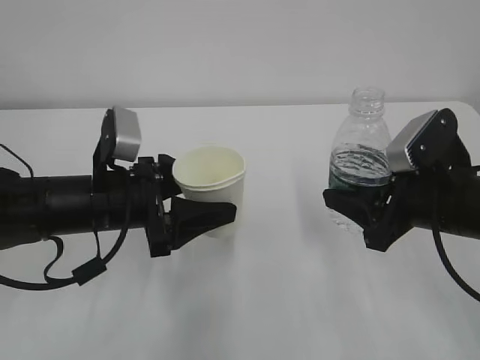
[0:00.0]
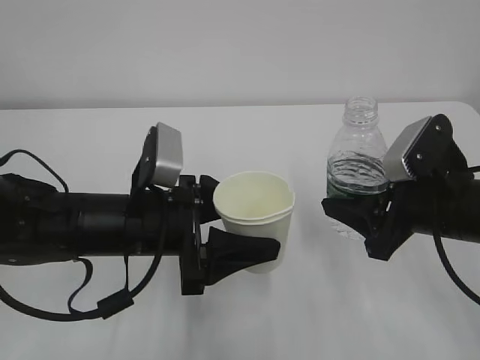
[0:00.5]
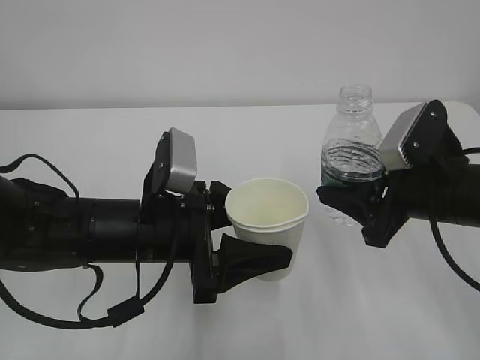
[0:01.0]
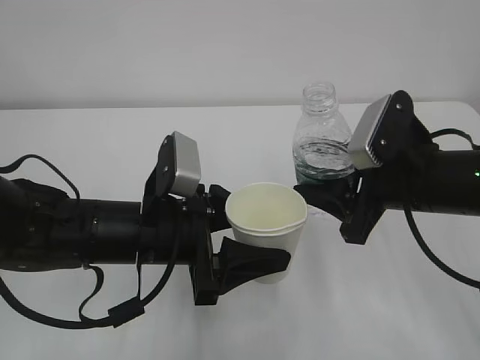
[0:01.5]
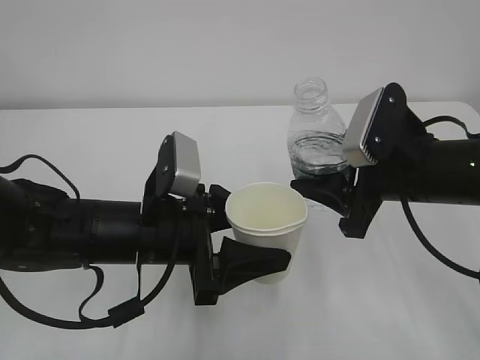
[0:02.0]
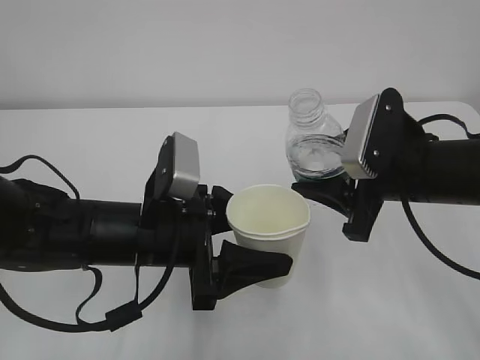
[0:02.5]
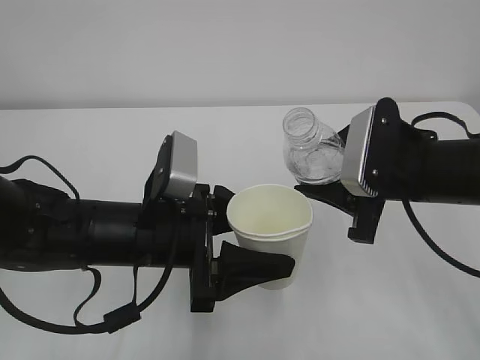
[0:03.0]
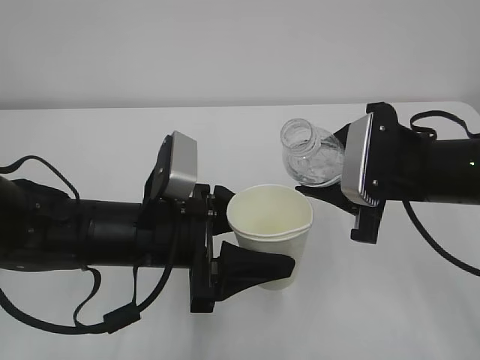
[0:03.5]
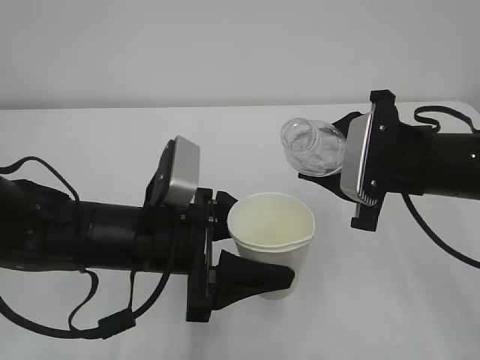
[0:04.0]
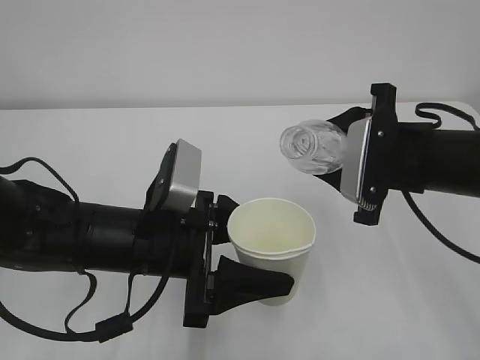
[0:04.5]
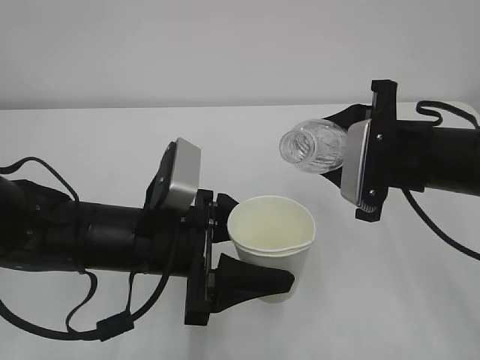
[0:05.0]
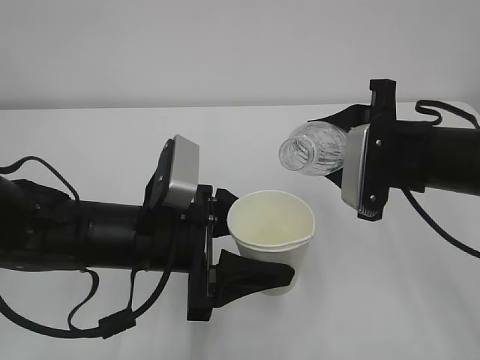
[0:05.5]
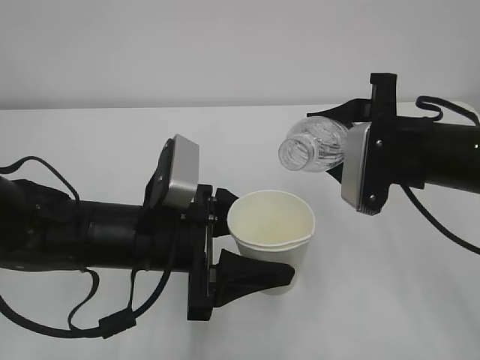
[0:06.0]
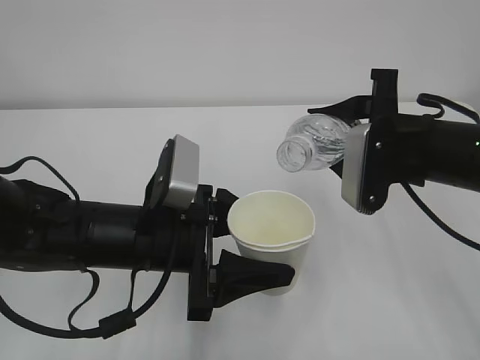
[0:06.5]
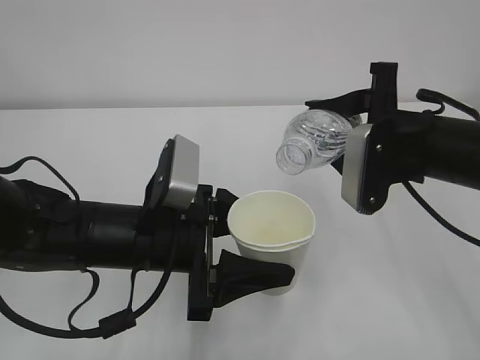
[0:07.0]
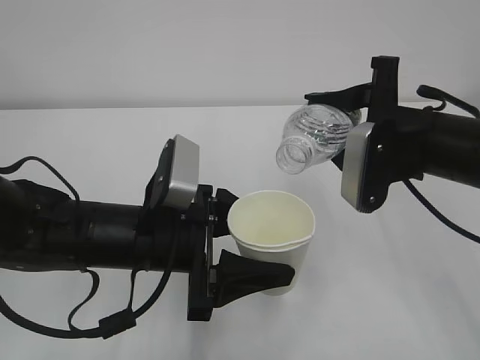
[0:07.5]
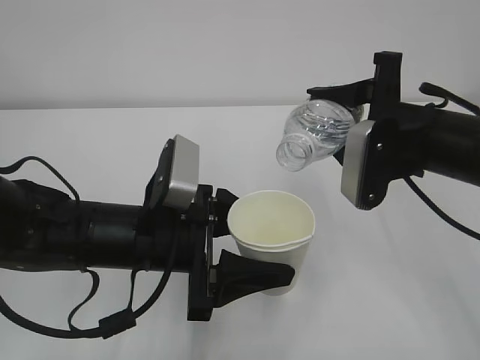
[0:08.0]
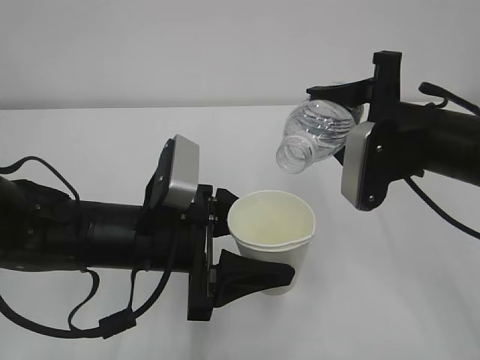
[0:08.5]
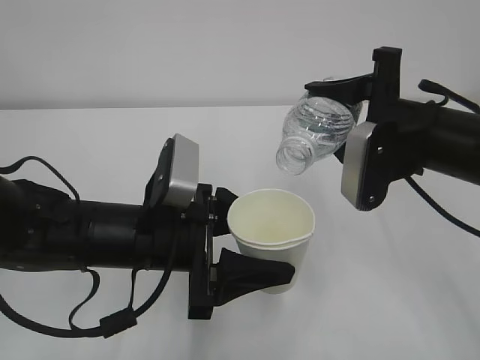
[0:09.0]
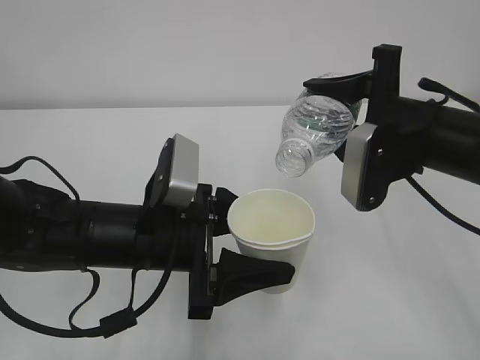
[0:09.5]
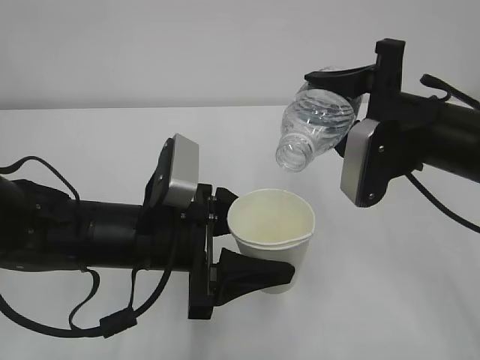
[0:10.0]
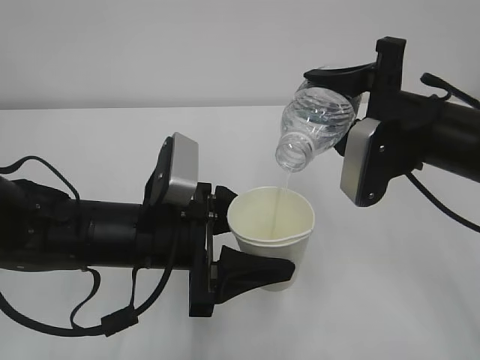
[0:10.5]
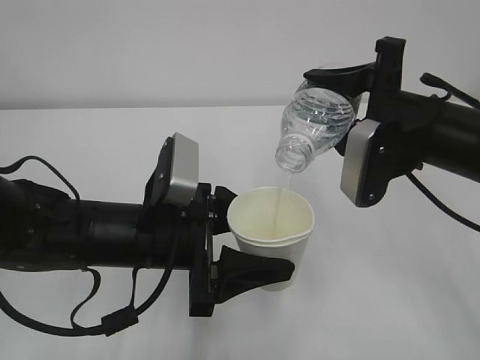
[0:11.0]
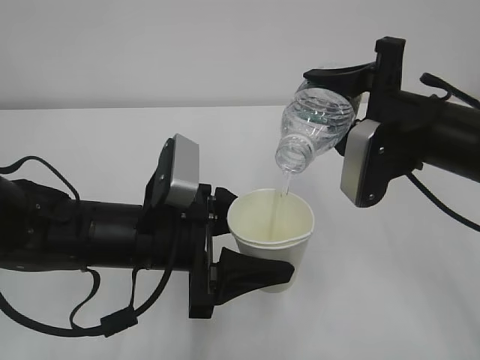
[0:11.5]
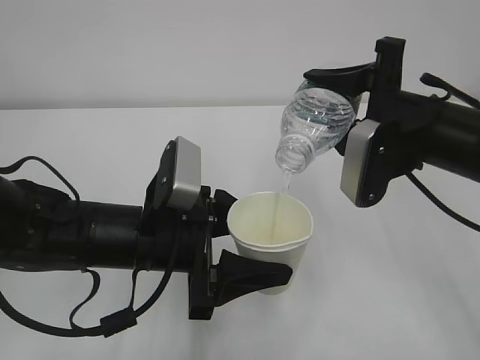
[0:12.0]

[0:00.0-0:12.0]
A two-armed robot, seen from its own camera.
0:00.0 to 0:02.0: The left gripper shifts approximately 5 cm to the right.
0:04.0 to 0:06.0: The grippers stay close to where they were, moving slightly.
0:06.0 to 0:08.0: There are only small adjustments of the grippers.
0:08.0 to 0:10.0: The grippers stay close to where they were, moving slightly.
0:10.0 to 0:12.0: The two grippers keep their place.

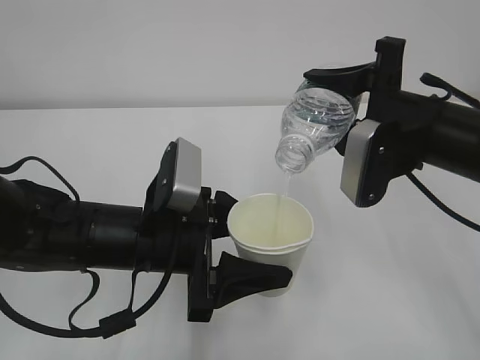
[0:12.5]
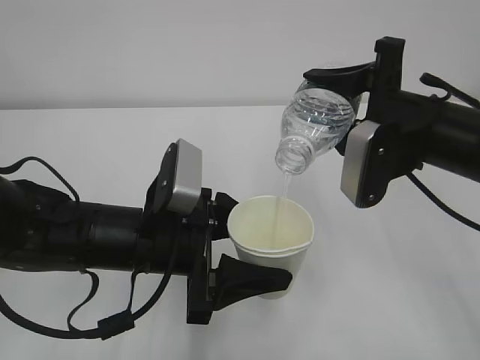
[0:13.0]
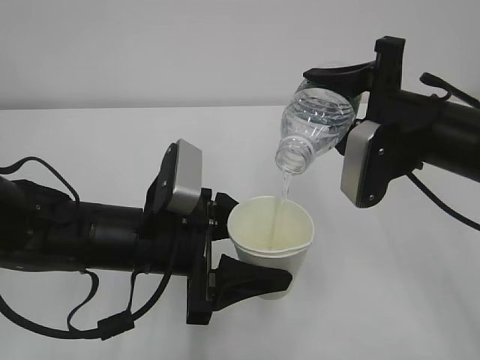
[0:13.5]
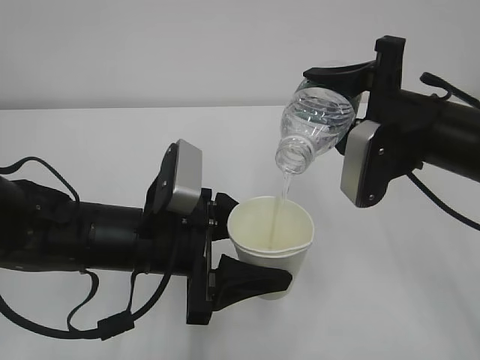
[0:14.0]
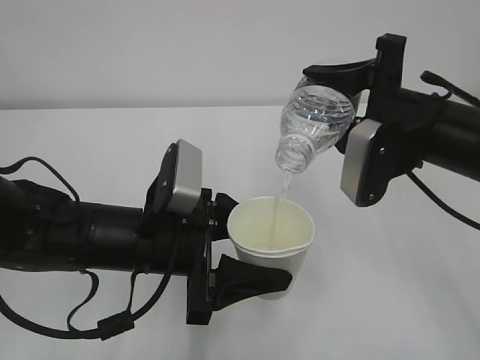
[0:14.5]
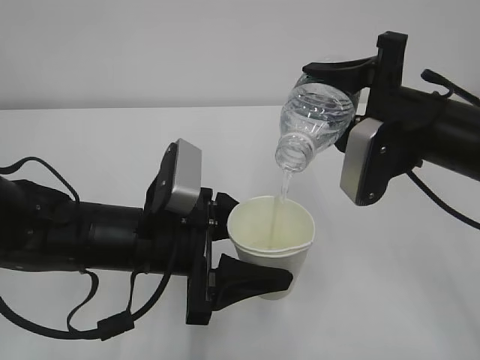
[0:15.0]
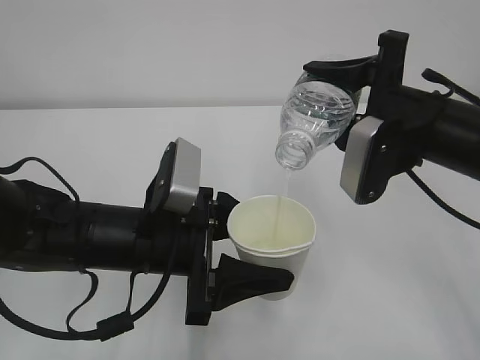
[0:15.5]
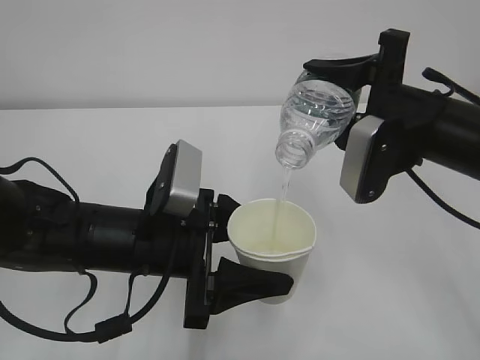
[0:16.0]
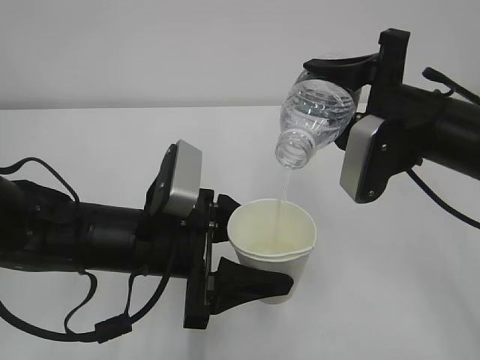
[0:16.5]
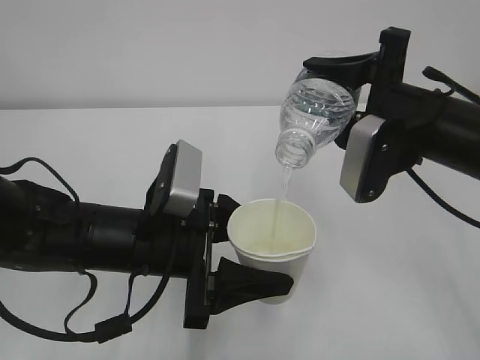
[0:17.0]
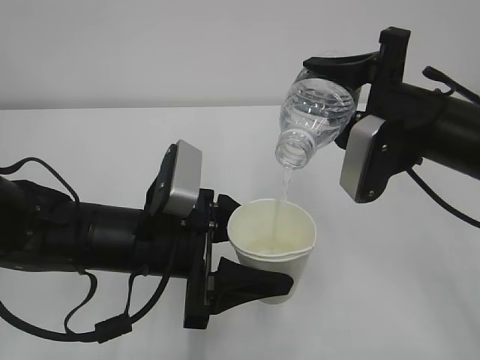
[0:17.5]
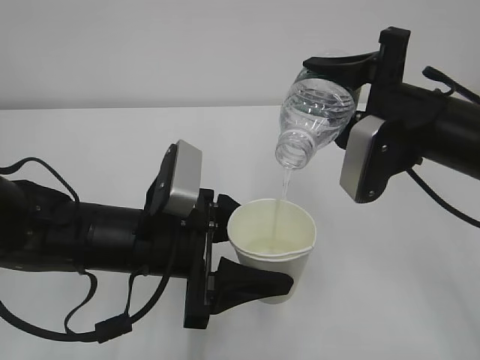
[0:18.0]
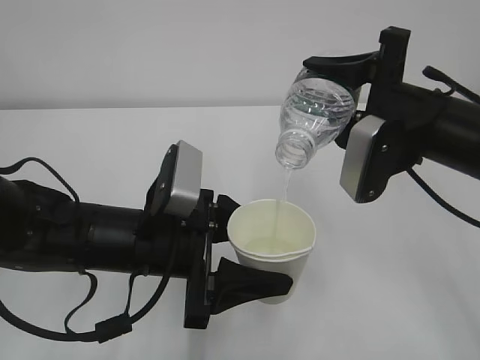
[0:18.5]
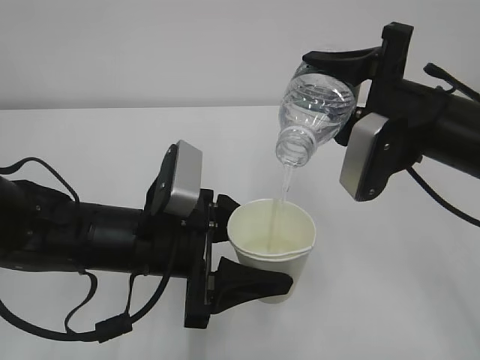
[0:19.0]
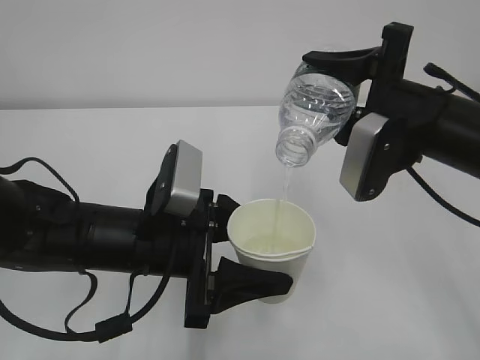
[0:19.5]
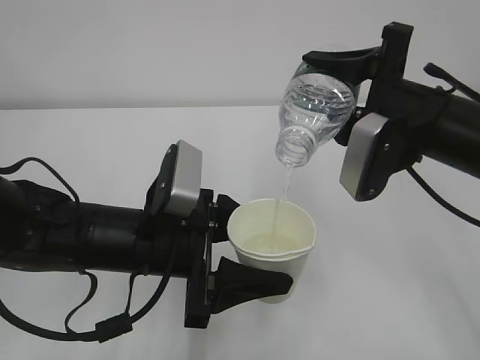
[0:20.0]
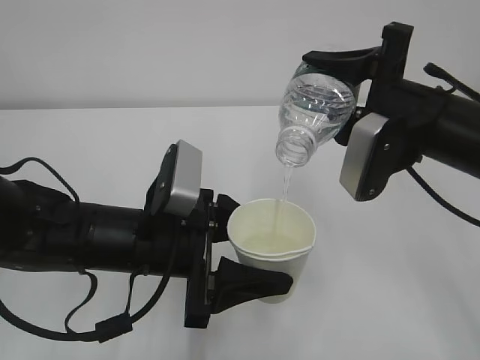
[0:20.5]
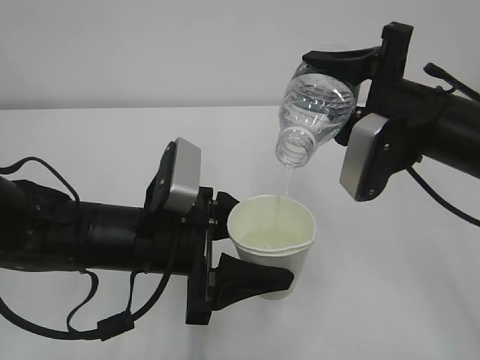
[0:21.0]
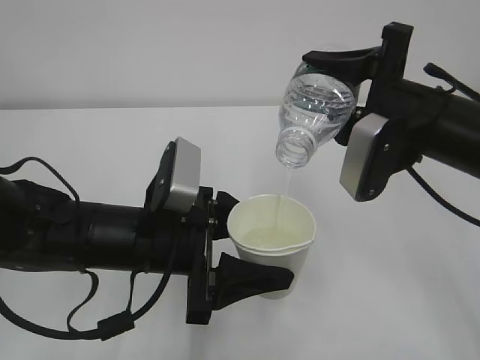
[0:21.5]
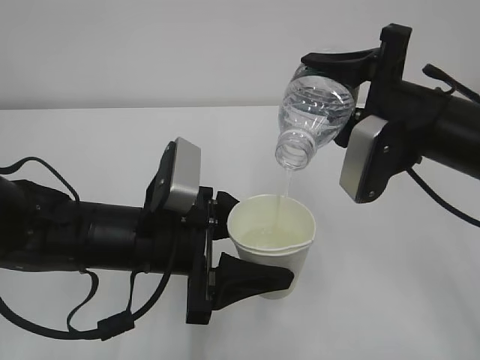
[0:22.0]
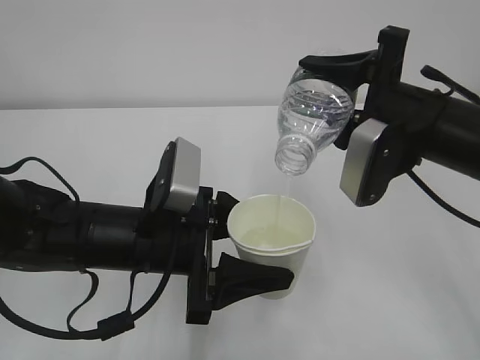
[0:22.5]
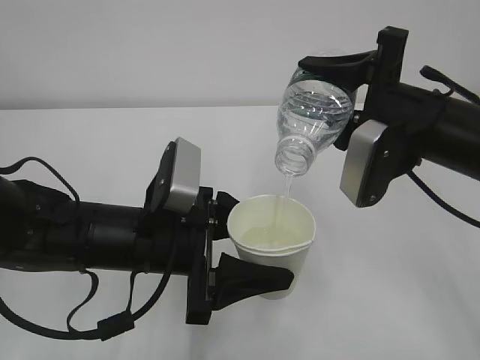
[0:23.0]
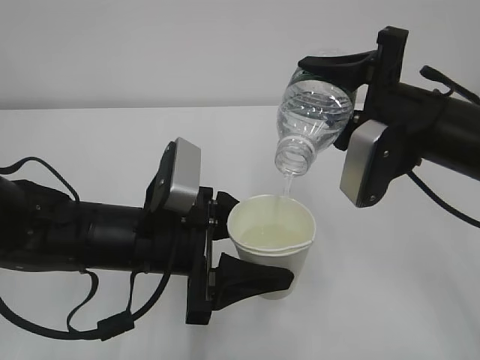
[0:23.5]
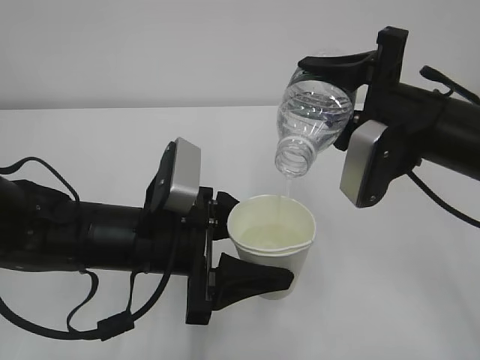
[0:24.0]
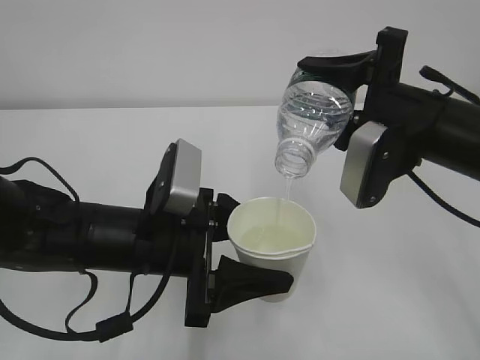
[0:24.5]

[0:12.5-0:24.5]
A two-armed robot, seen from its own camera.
0:12.5 to 0:18.5: Both grippers stay about where they are.
0:18.5 to 0:24.5: The two grippers keep their place.

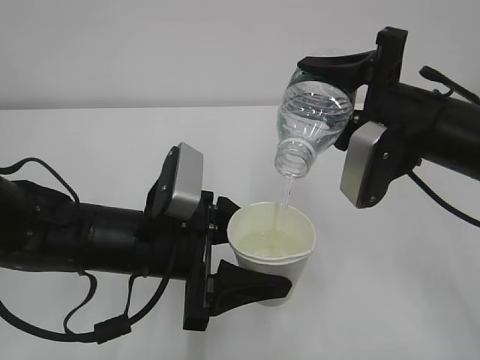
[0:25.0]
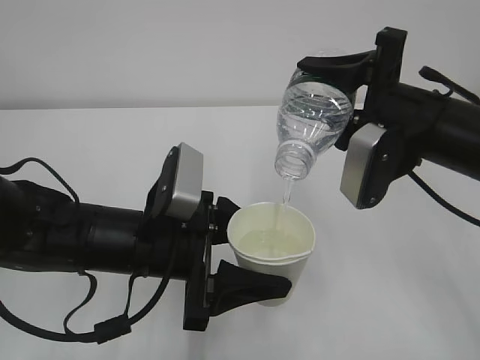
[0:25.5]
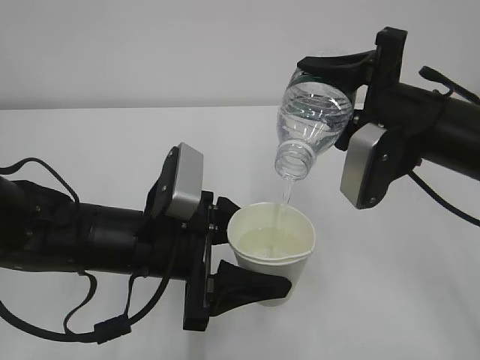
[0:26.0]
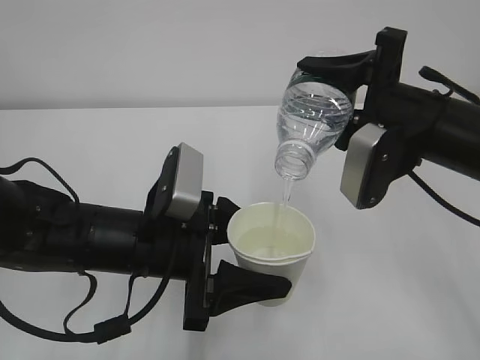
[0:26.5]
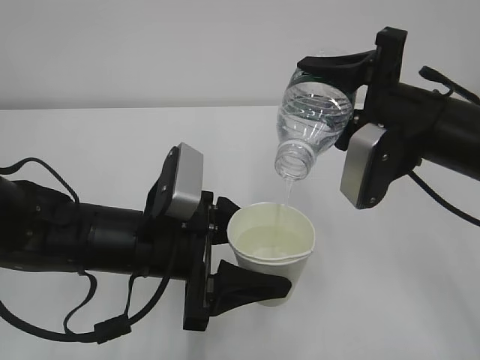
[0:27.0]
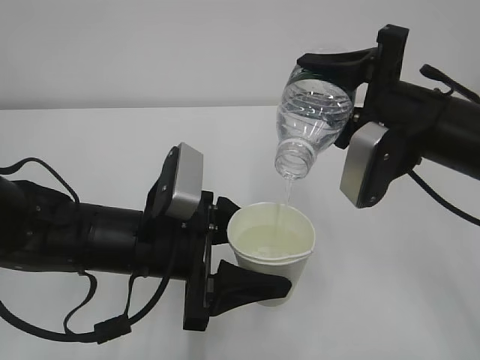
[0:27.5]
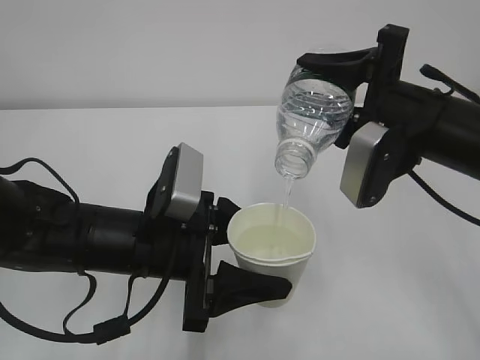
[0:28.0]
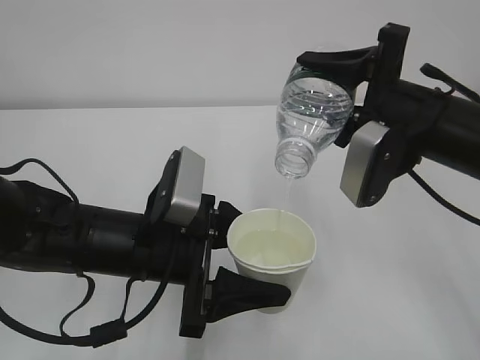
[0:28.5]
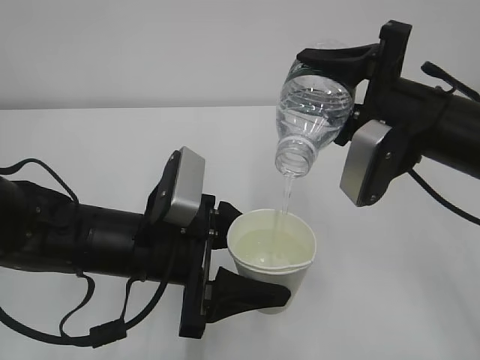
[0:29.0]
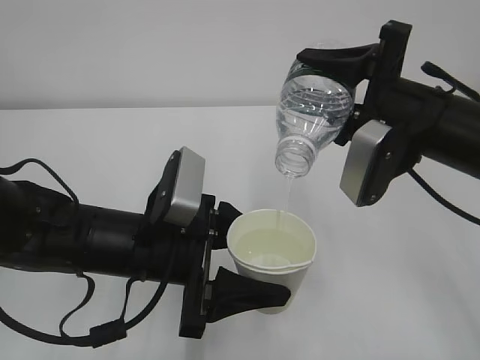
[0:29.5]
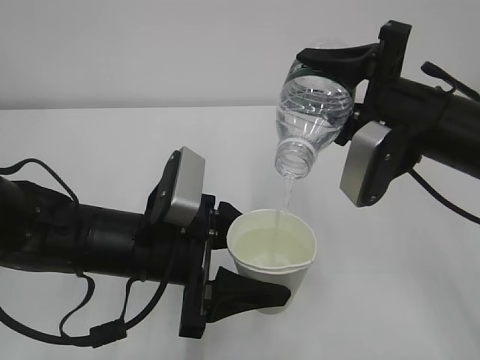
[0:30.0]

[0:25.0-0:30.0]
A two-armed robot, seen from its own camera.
0:25.0 to 0:30.0: The two grippers keep their place.
